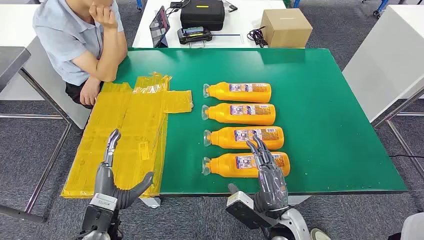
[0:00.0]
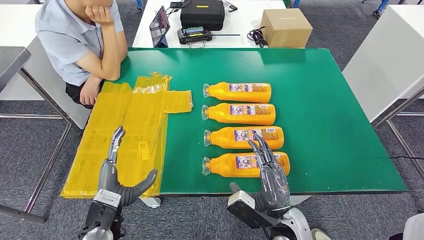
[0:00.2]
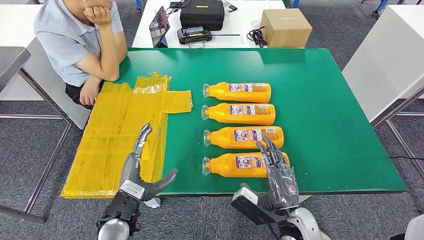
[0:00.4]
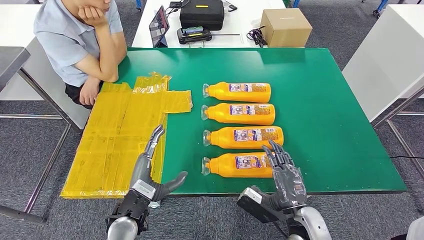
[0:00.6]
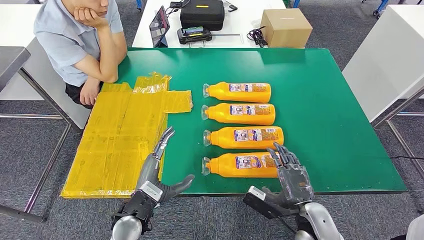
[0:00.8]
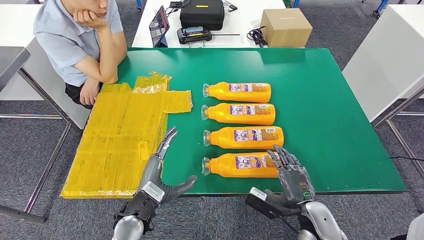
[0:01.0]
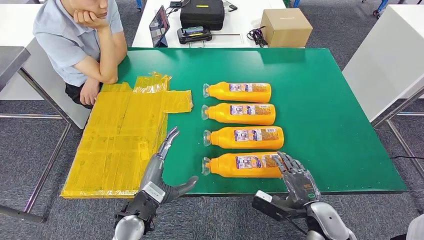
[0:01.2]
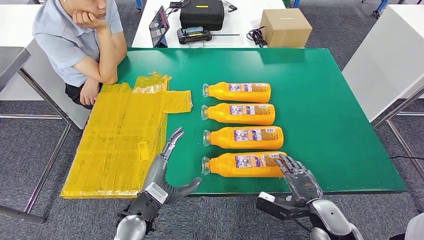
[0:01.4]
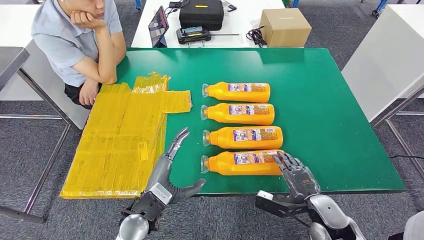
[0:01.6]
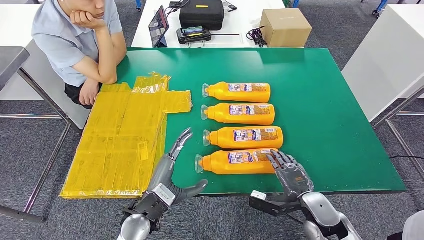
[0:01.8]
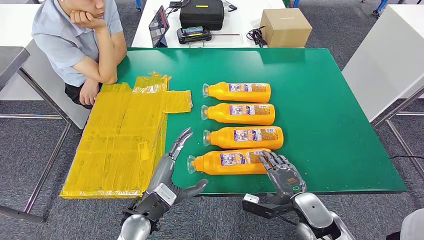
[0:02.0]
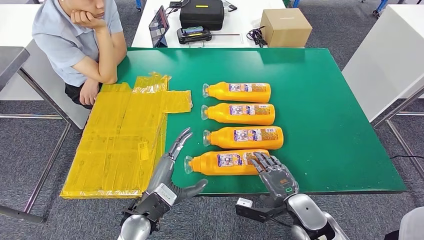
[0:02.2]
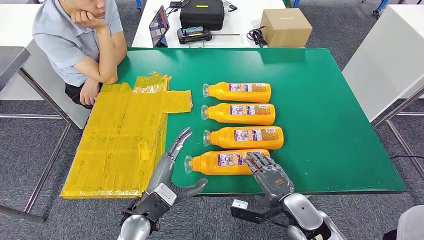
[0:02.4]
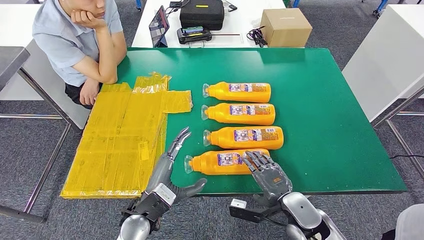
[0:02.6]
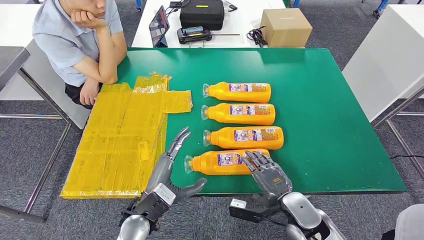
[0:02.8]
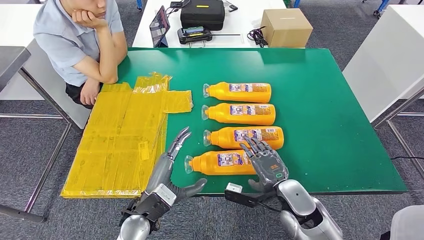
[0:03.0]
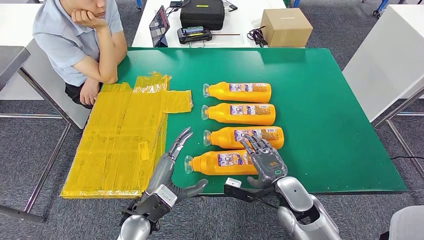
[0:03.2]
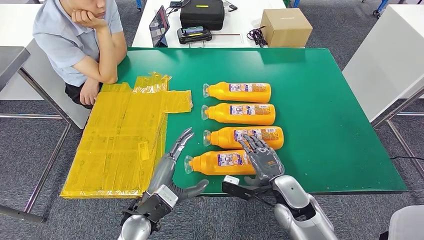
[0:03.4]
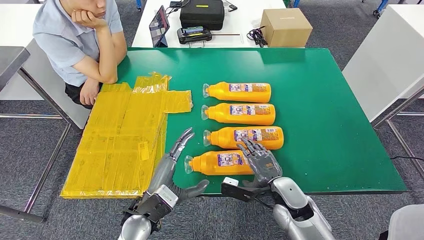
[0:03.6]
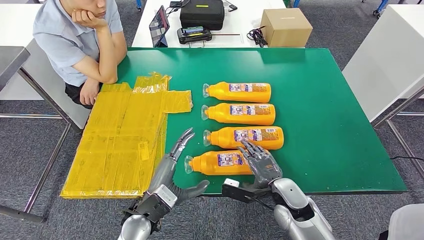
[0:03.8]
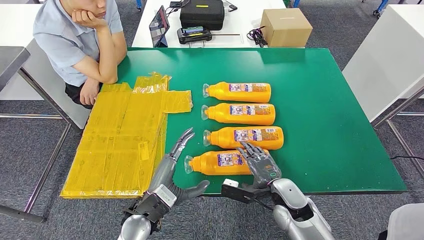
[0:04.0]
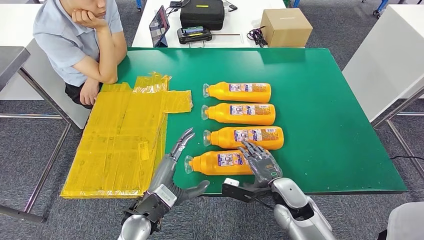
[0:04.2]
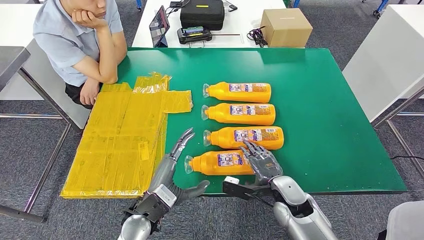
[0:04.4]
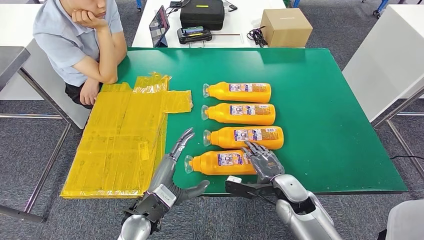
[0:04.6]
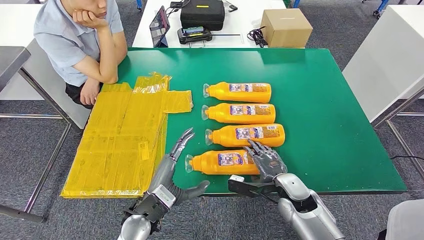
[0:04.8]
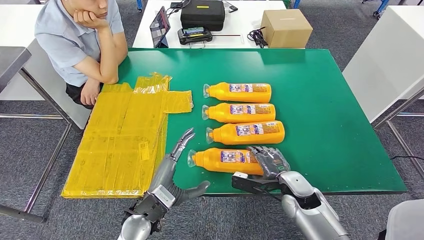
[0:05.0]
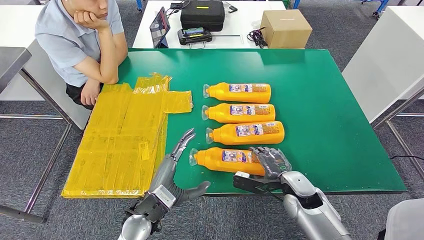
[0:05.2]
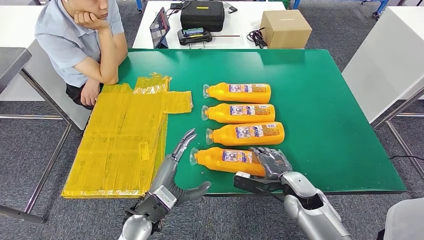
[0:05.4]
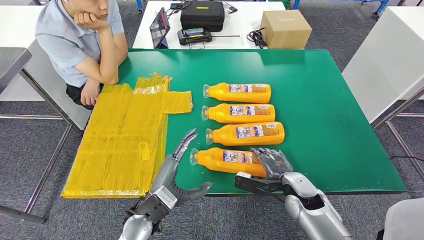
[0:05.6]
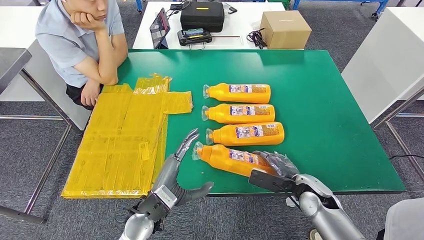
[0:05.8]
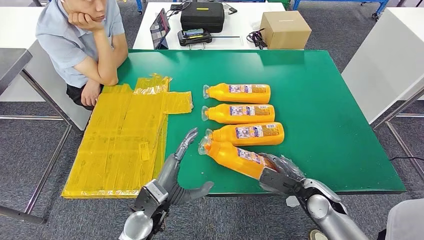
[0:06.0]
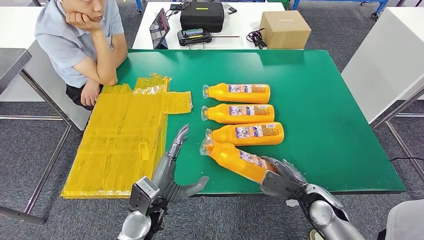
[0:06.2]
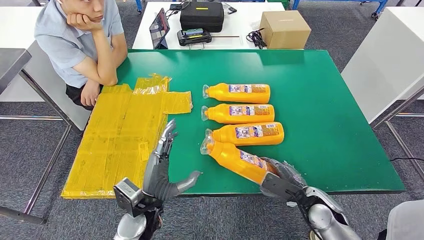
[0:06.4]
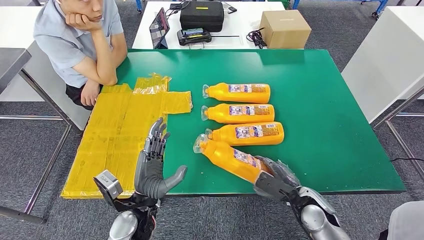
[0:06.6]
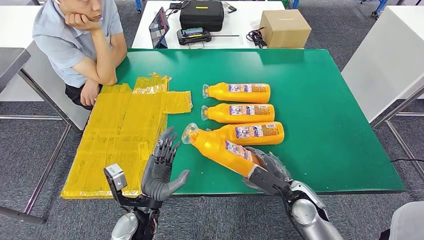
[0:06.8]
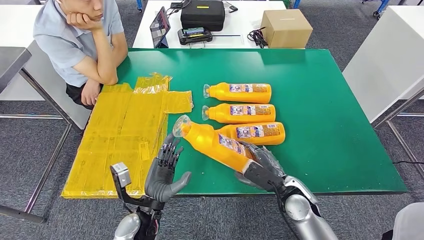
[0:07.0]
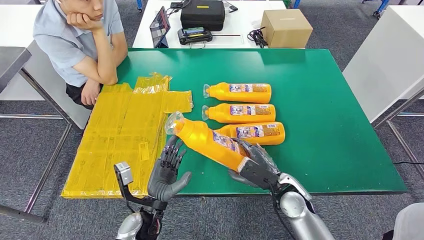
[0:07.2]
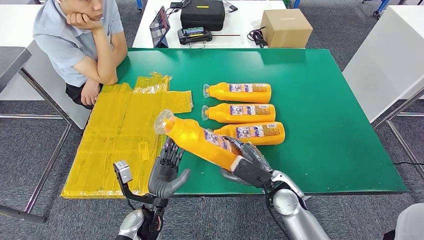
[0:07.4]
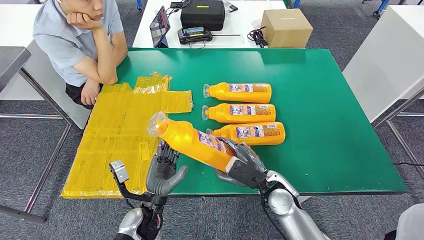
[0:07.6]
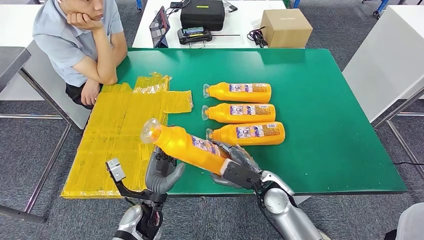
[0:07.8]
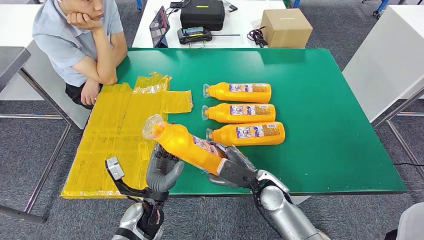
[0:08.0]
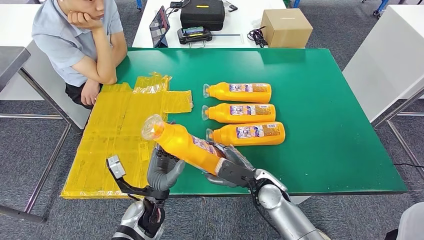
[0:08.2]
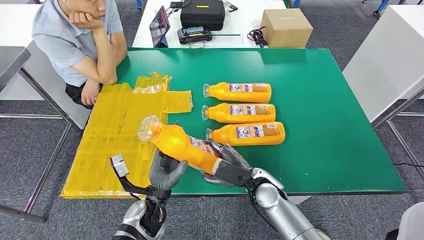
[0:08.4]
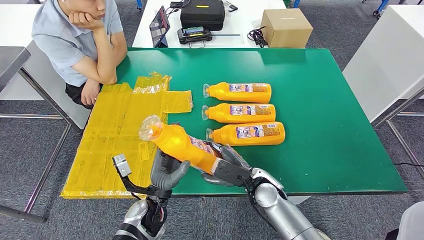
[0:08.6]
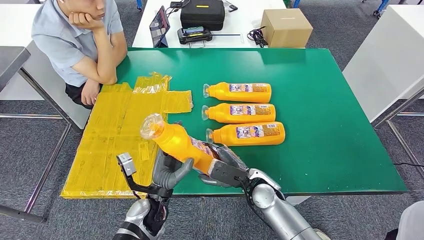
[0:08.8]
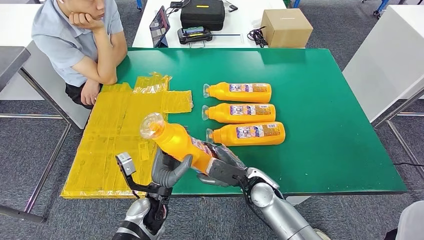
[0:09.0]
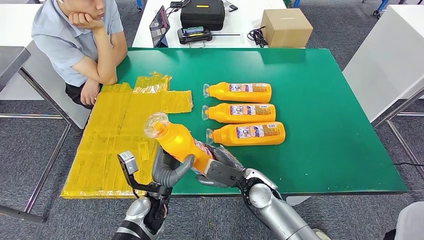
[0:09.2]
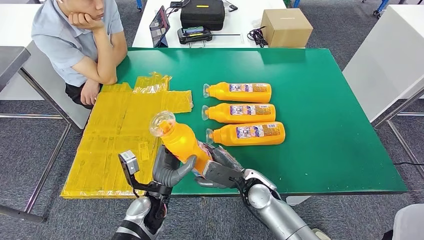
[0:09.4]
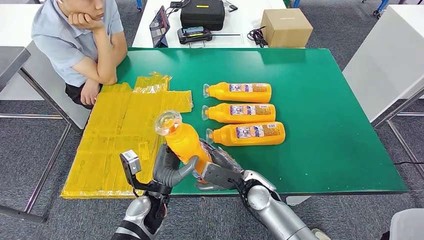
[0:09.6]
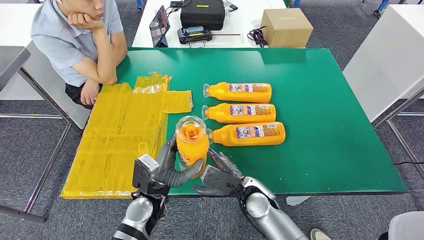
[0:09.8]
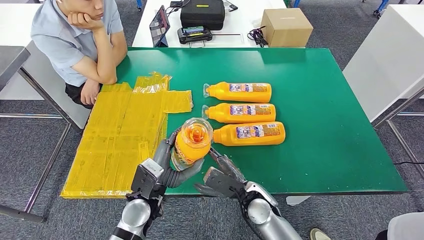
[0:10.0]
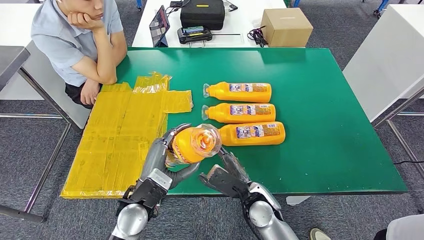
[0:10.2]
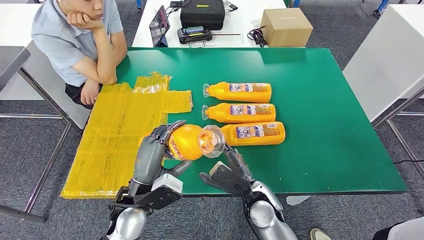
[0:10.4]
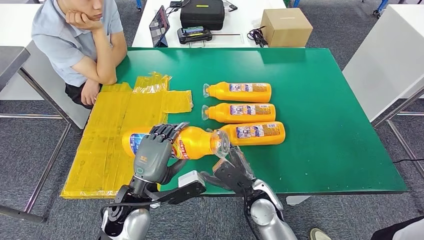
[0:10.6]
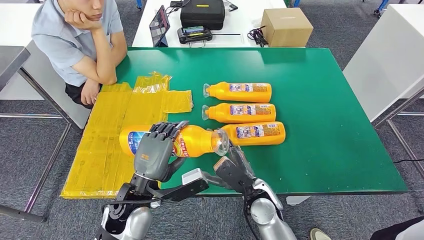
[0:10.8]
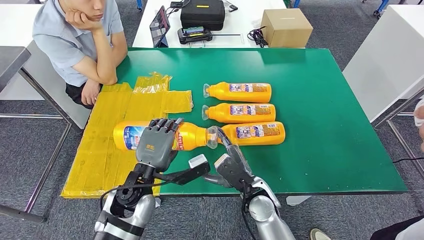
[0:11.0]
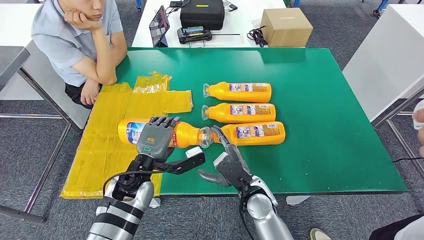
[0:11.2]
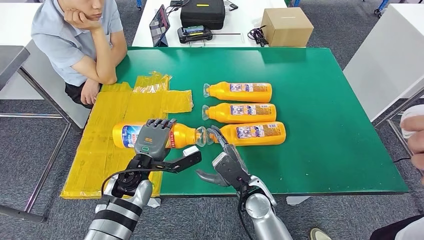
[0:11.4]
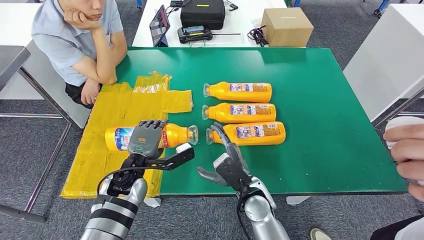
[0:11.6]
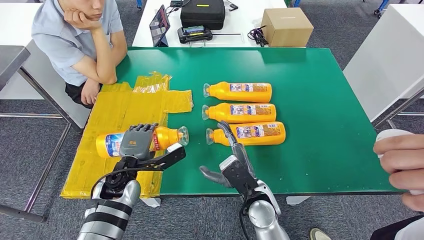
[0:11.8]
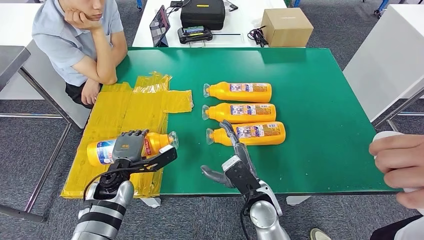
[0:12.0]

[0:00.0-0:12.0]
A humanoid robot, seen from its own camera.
Step, 0:00.0 to 0:07.2: Take the fast-moving consumer goods bottle from the table.
Step, 0:07.4 to 0:11.4: Flip the fast-moving consumer goods bottle to the front side.
0:01.6 to 0:03.0: The right hand travels to the left by about 5 cm.
0:03.0 to 0:04.4: The hands make only small movements.
0:04.4 to 0:06.0: The right hand travels to the right by about 10 cm.
0:06.0 to 0:07.6: The right hand heads to the left, covering some 15 cm.
0:07.6 to 0:09.0: The hands stay close to where they were, moving slightly.
0:09.0 to 0:10.4: The left hand goes about 10 cm upward.
0:10.4 to 0:12.0: The left hand travels forward, to the left and downward by roughly 10 cm.

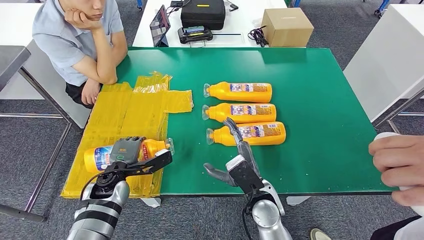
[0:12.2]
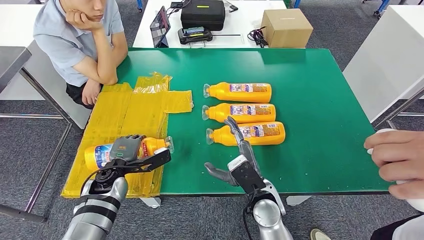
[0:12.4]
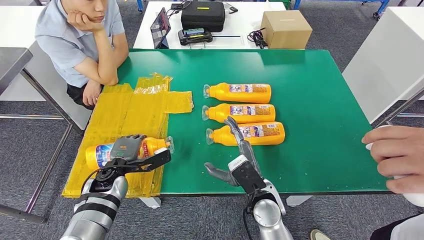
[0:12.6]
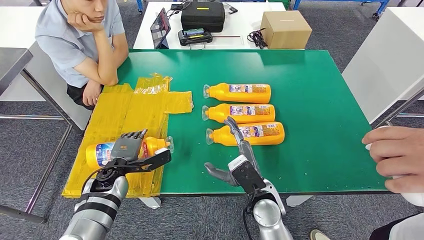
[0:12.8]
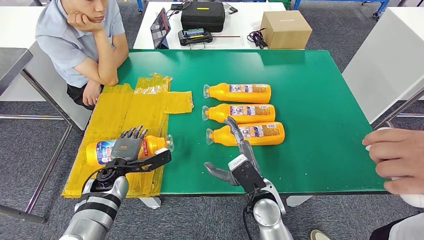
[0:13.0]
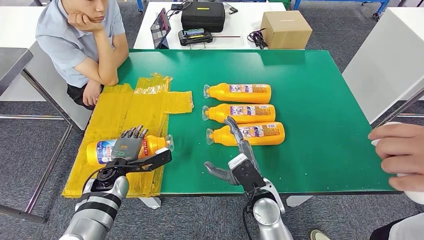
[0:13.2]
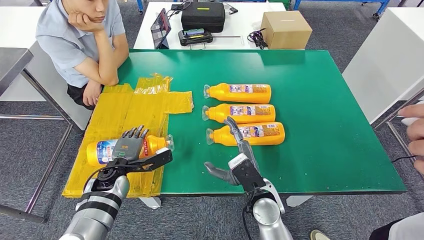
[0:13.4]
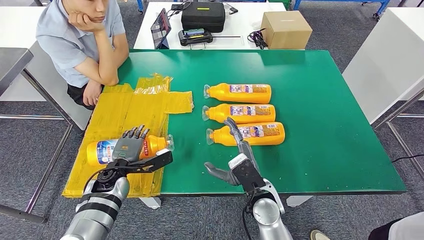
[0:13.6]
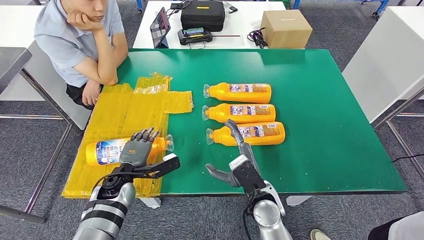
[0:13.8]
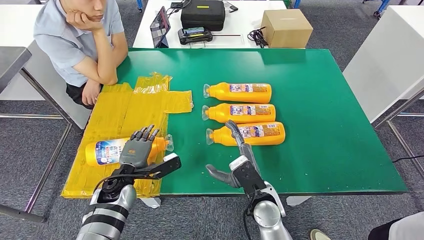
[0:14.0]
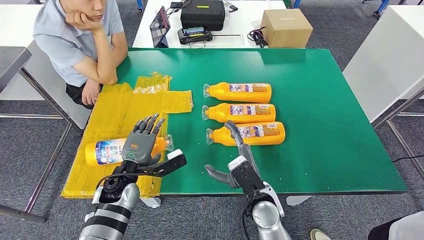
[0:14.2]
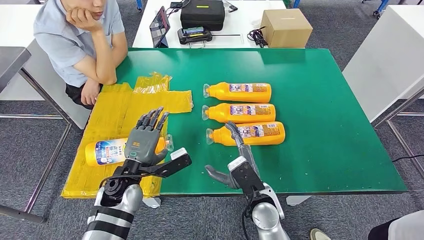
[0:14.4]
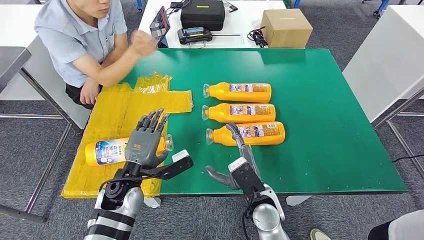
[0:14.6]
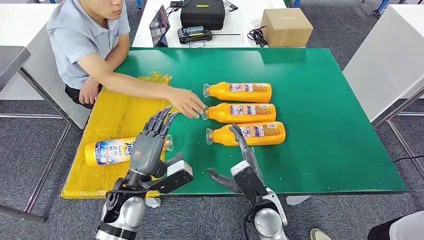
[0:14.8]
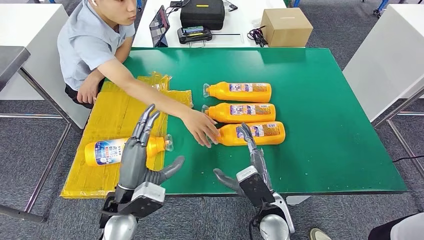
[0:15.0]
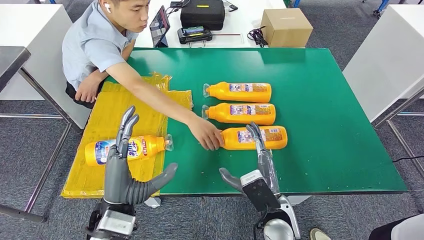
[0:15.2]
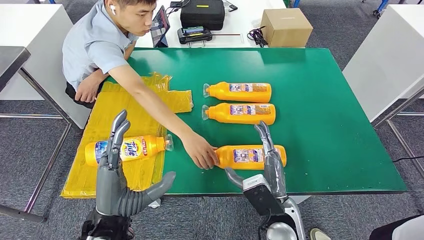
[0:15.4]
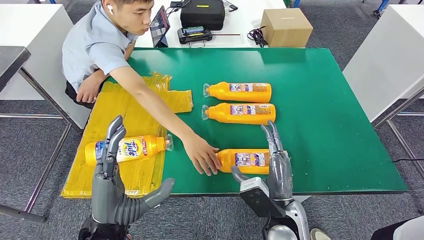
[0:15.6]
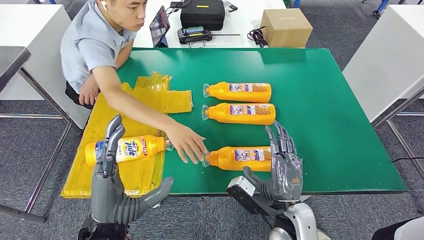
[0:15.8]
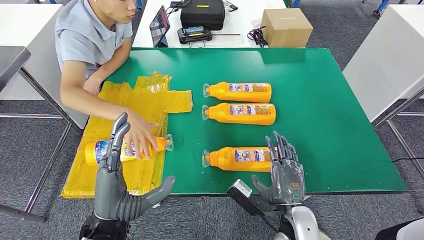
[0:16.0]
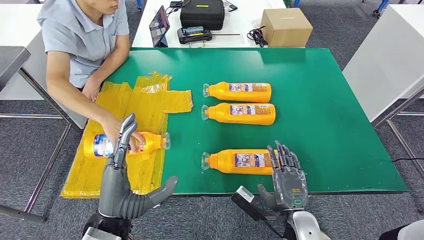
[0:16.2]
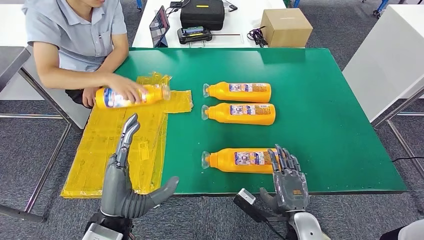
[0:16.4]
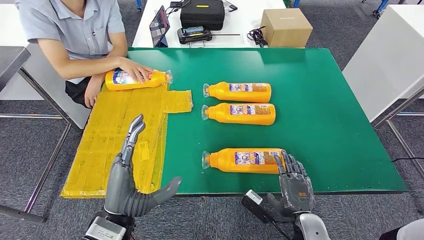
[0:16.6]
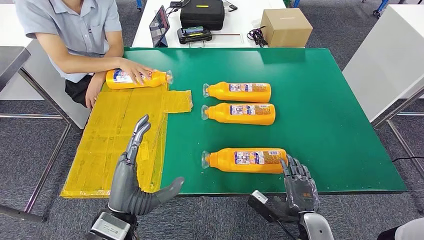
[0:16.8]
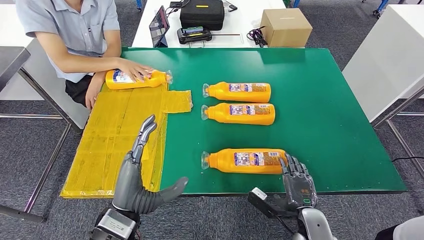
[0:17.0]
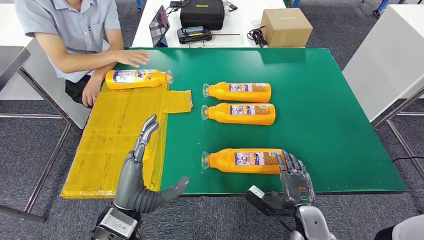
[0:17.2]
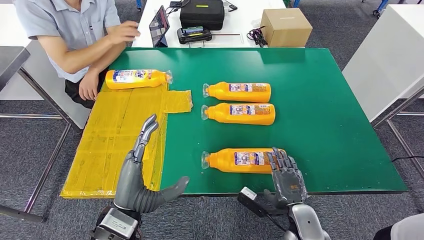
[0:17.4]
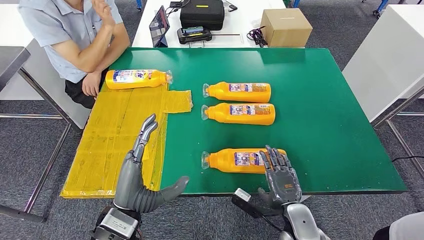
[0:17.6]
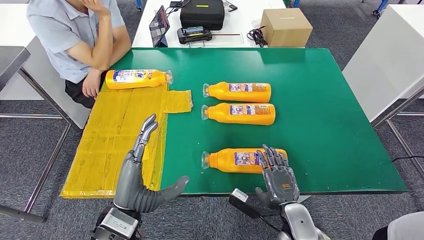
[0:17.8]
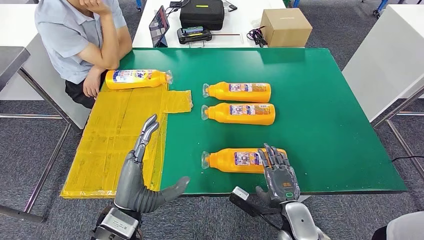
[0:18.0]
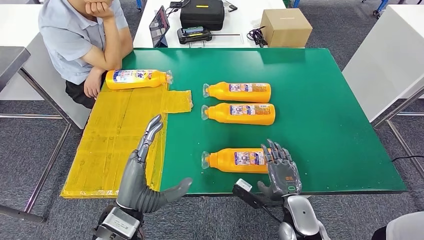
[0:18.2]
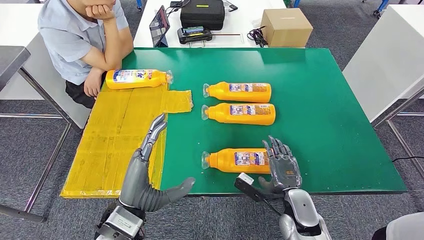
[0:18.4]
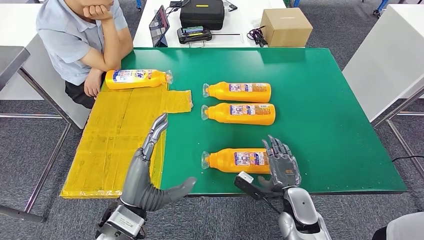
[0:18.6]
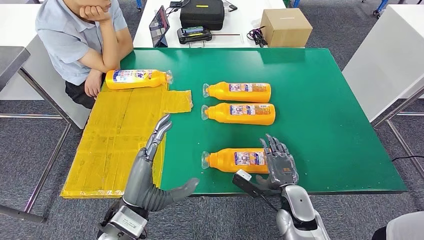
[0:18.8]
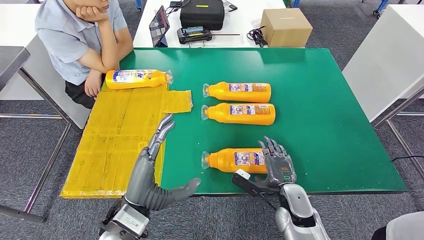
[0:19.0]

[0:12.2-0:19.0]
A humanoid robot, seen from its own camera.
0:12.2 to 0:13.6: The hands make only small movements.
0:17.6 to 0:19.0: The right hand moves forward, roughly 5 cm.
